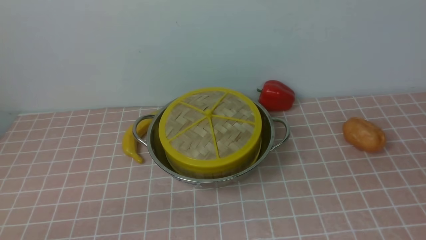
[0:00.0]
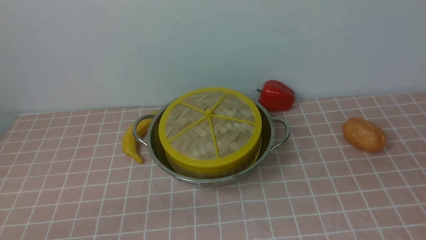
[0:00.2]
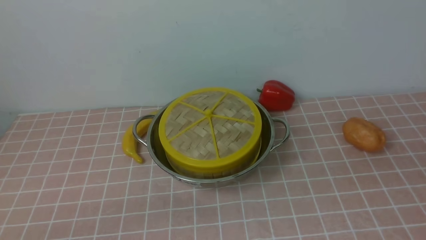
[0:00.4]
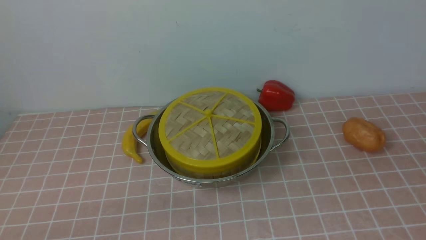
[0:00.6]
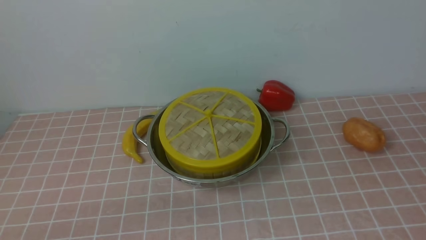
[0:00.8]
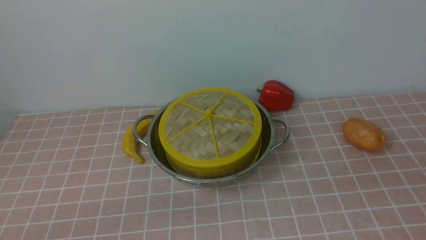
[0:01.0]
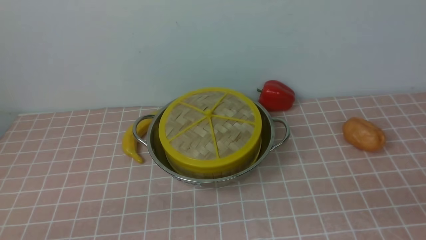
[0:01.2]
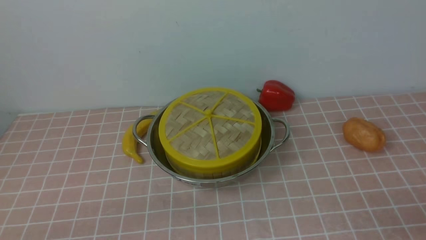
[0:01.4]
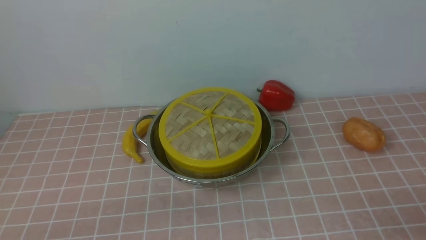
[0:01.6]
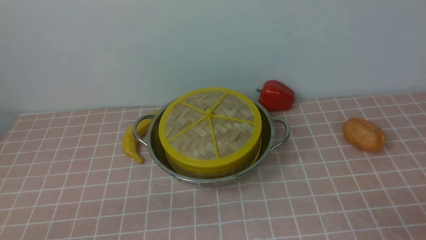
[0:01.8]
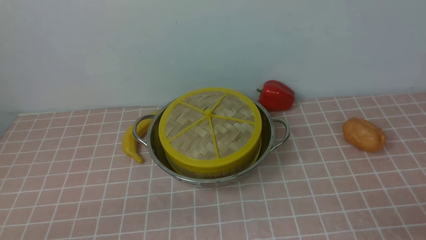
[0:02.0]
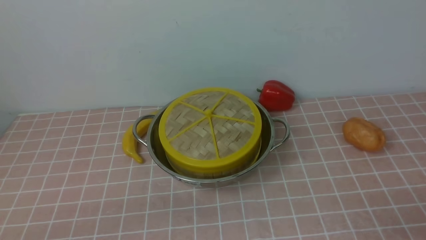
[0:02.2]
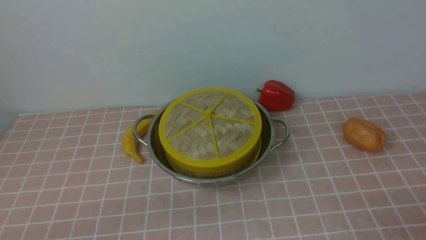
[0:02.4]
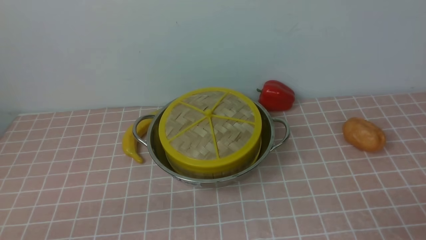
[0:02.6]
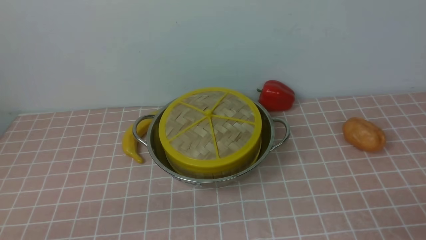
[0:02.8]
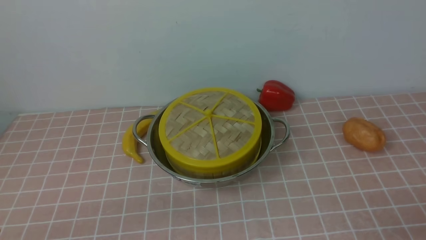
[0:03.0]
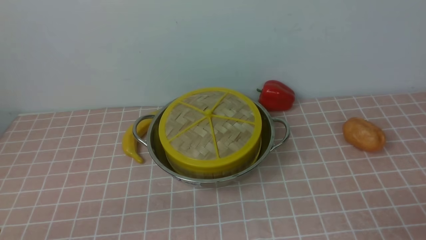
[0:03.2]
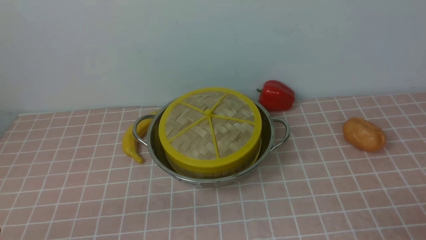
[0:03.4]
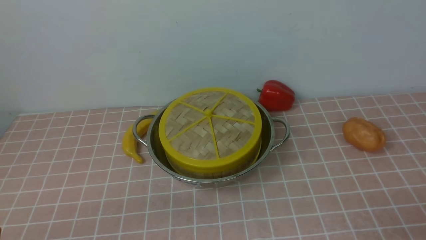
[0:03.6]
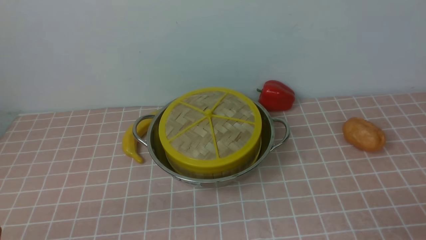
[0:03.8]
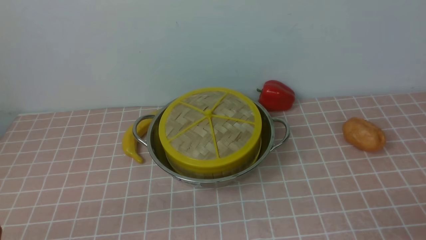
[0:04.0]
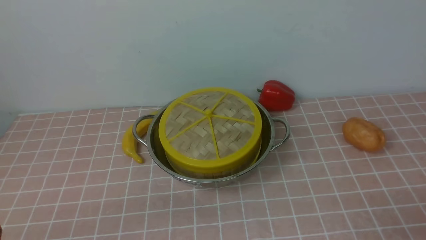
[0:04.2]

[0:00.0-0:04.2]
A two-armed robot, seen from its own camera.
Task of the whole recording: place the steamer in the pot on the pink tablecloth, and put the lid on the steamer.
0:02.8 to 0:04.2: Neither gripper changes place.
